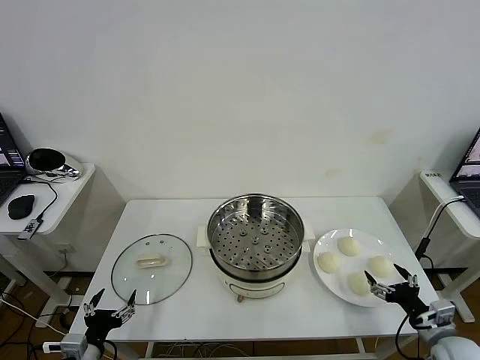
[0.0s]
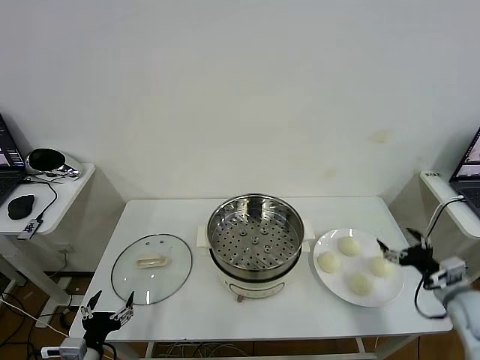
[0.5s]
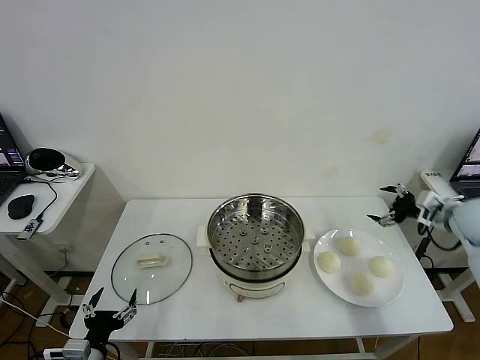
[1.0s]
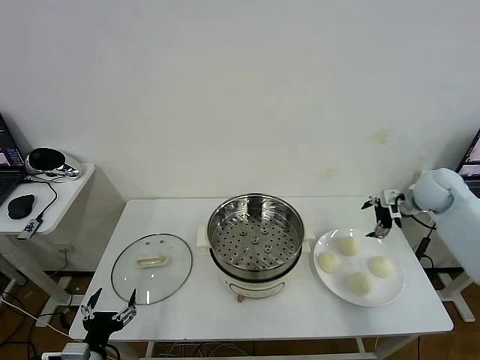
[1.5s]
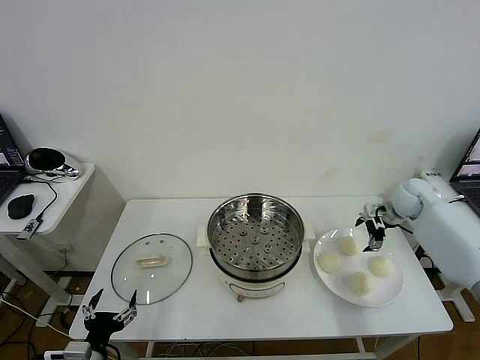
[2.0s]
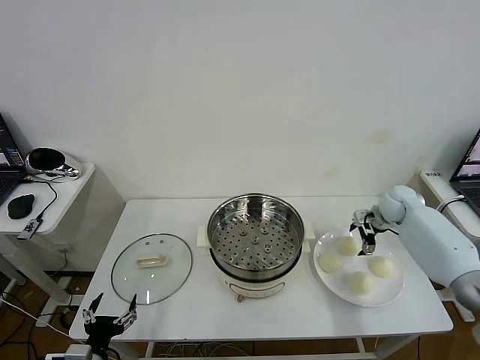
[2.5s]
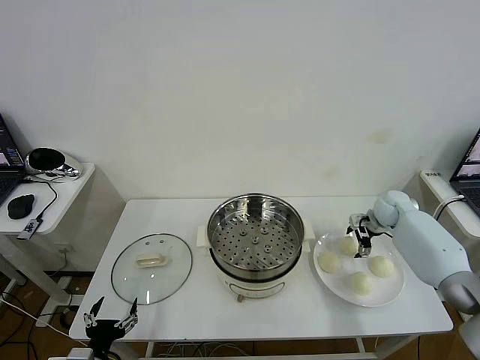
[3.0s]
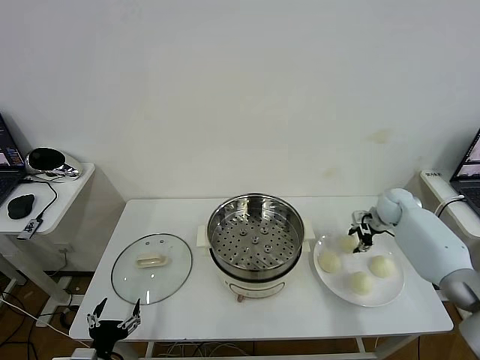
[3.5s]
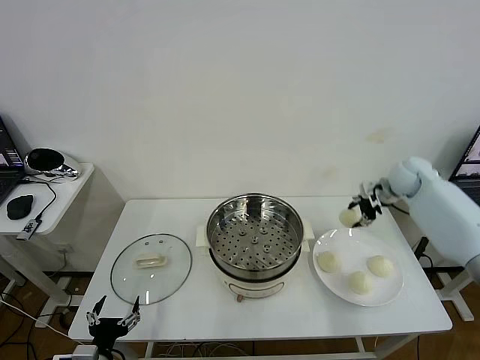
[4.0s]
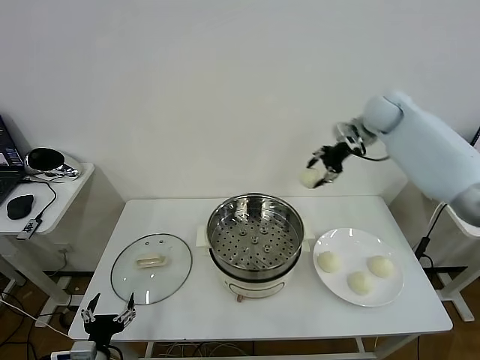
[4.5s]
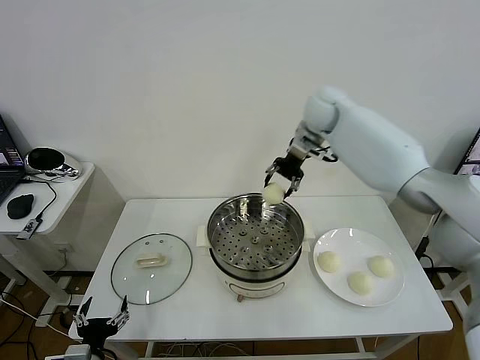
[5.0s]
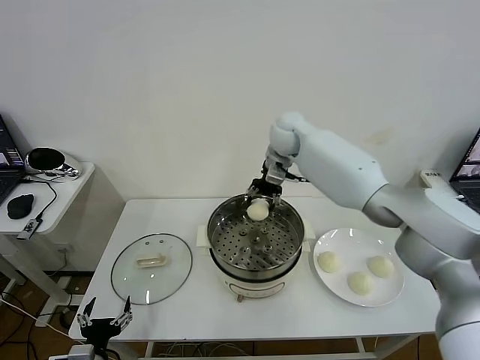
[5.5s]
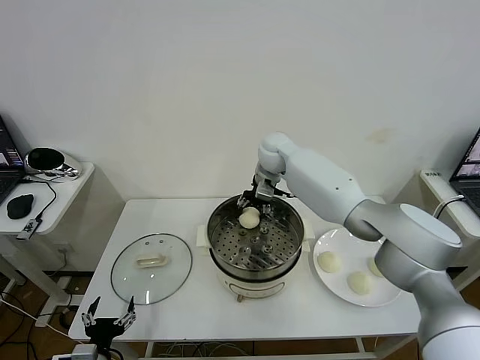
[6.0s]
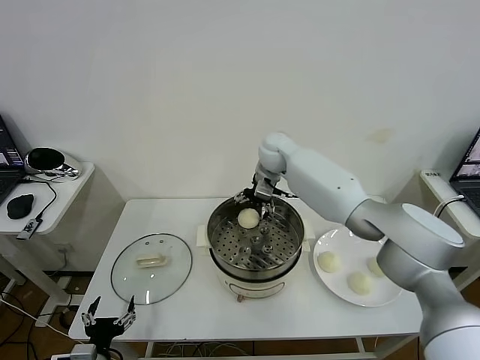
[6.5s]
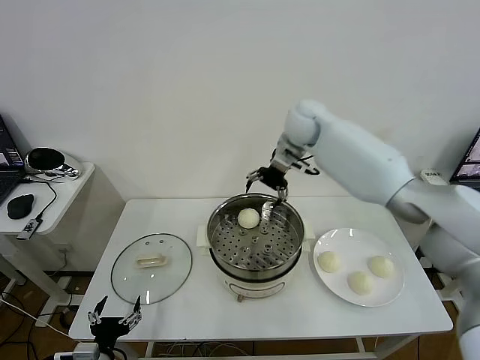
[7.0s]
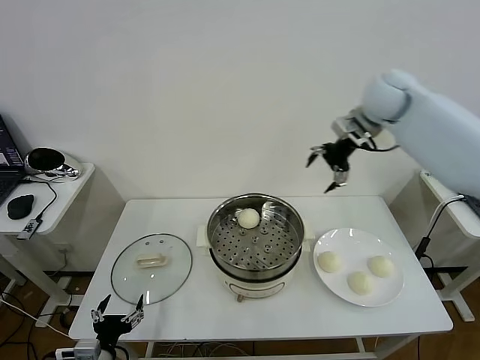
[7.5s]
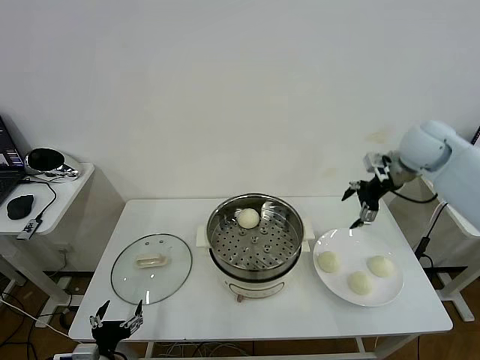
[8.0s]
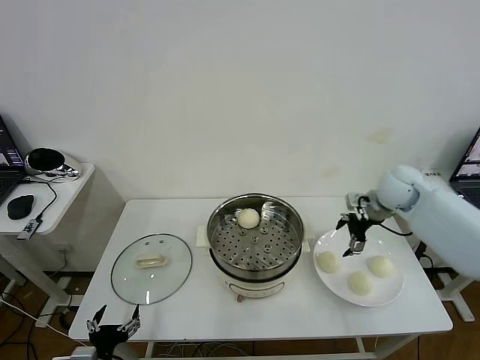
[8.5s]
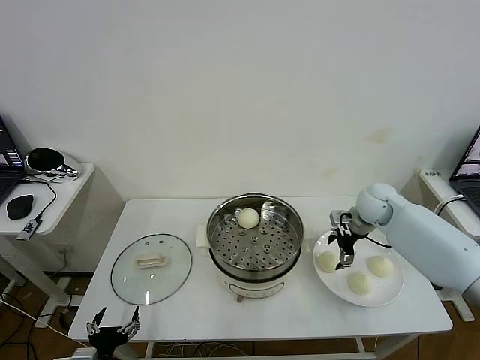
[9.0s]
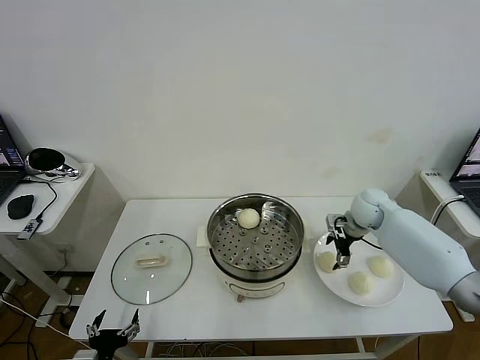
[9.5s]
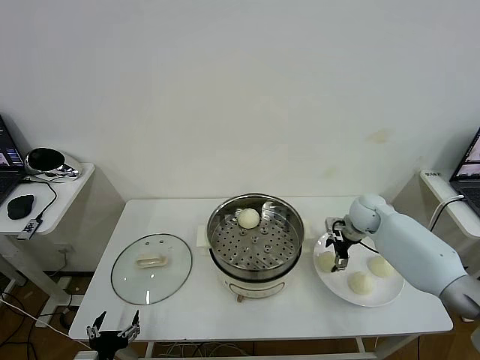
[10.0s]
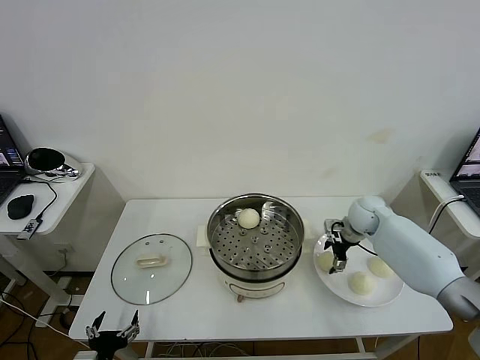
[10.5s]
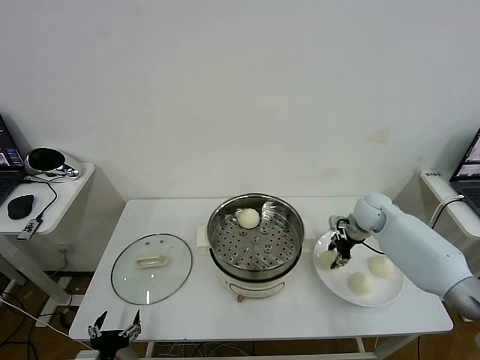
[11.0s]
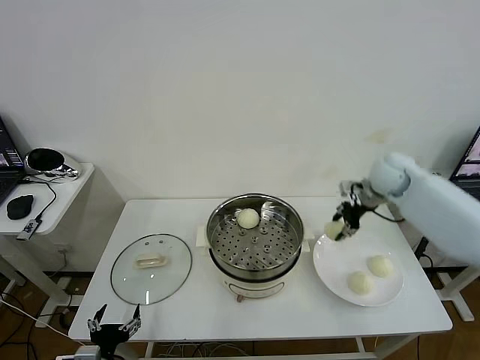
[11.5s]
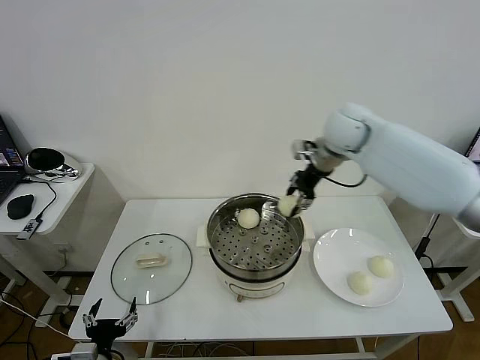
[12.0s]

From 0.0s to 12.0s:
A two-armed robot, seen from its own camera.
Task of the whole recording: take steamed baozi put them in steamer then cover it.
Step, from 0.0s to 3.0s: Grasp the baozi in the plate with right gripper.
Step, from 3.5s to 6.5s: Place the baozi on the steamer with right gripper.
Step, from 7.0s to 10.5s: Grasp the baozi in the plate with right gripper.
From 2.0s to 4.0s: The right gripper is displaced upward by about 10 cm, and closes.
From 4.0s to 6.0s: The right gripper heads to the left, covering approximately 30 cm.
From 6.0s to 8.0s: The right gripper travels to the right by roughly 30 cm, and opens its fingers.
From 8.0s to 10.0s: The right gripper goes approximately 20 cm downward.
From 10.0s to 12.0s: The right gripper shifts approximately 30 cm upward and to the left, and closes up.

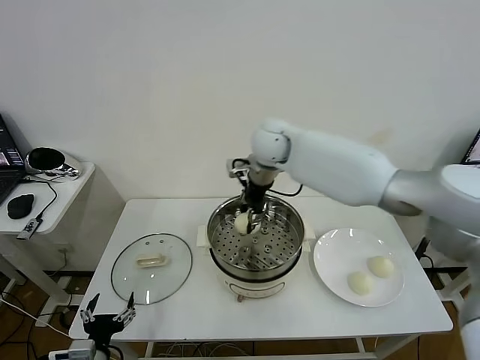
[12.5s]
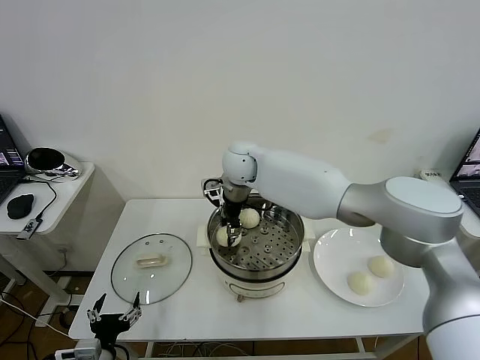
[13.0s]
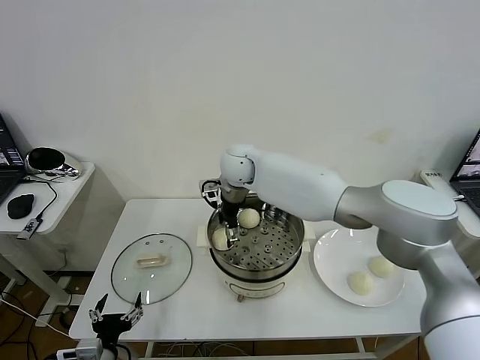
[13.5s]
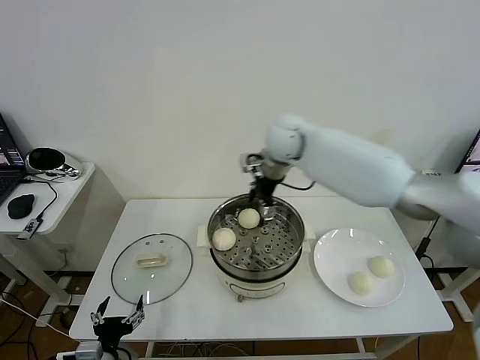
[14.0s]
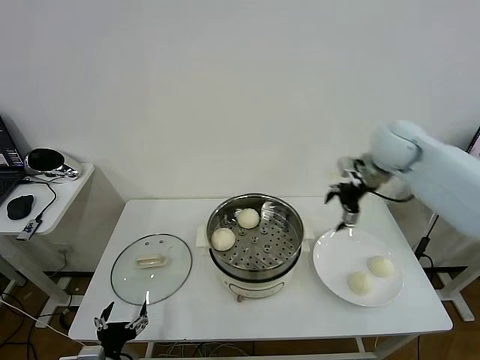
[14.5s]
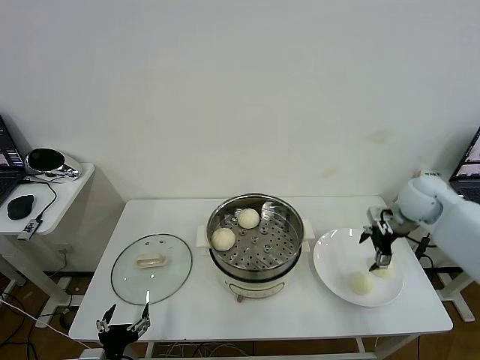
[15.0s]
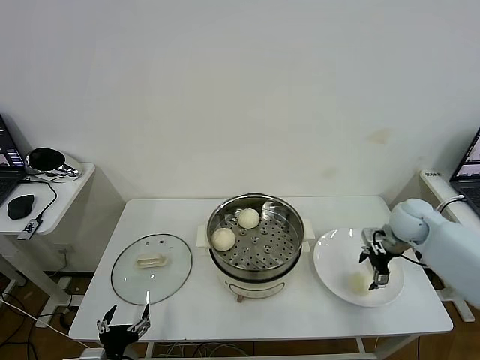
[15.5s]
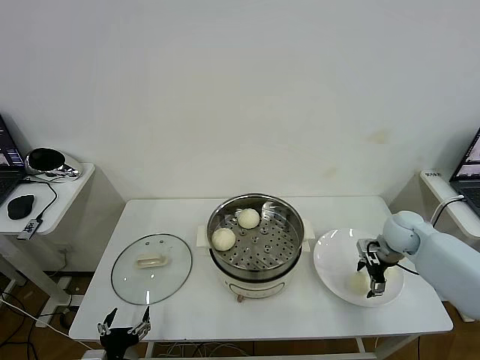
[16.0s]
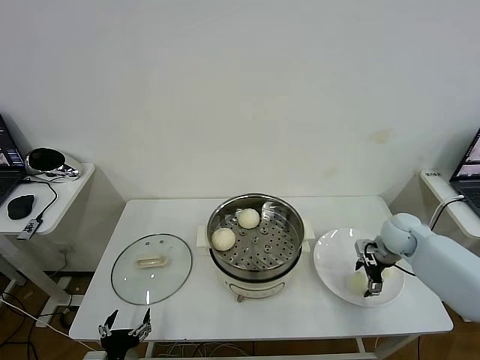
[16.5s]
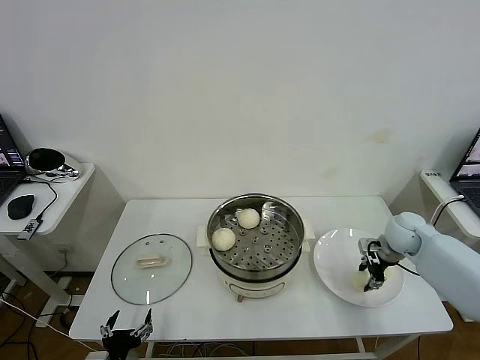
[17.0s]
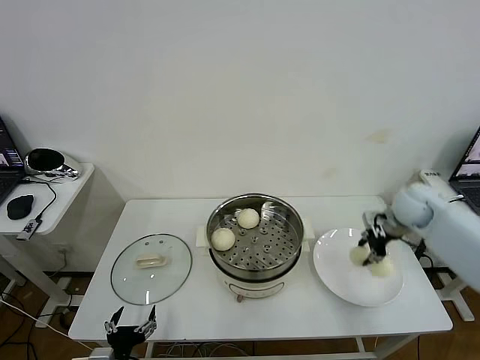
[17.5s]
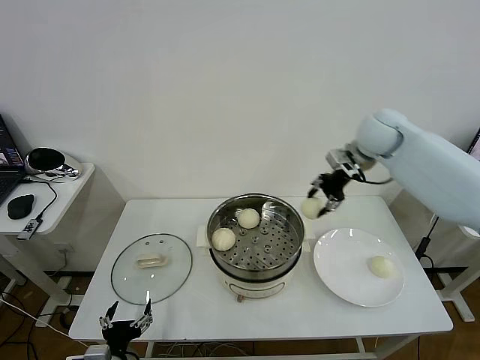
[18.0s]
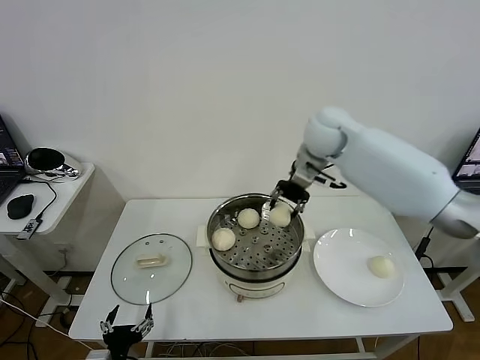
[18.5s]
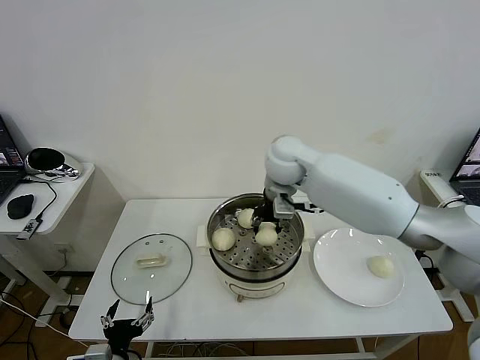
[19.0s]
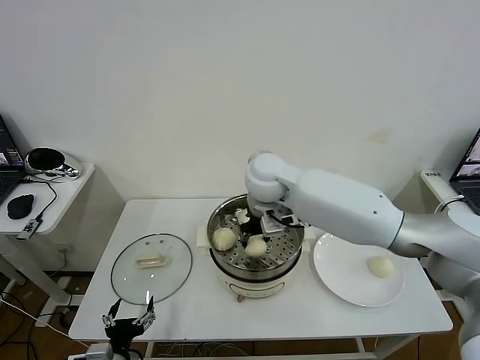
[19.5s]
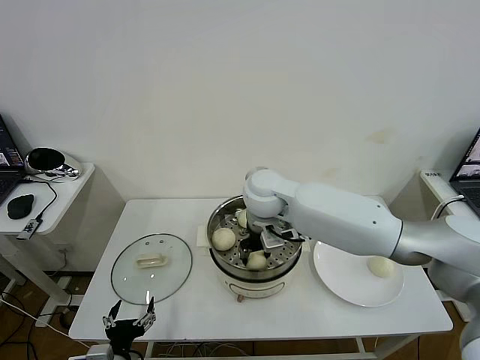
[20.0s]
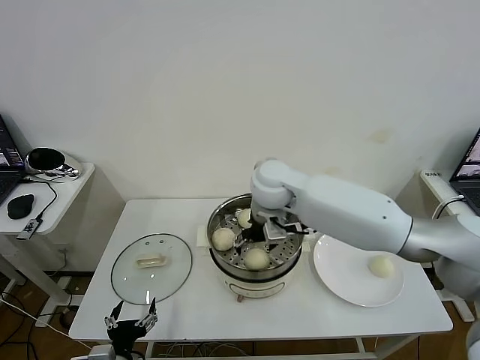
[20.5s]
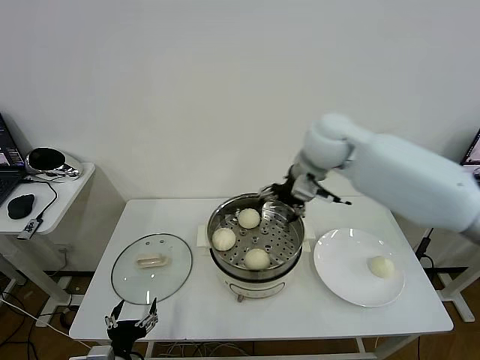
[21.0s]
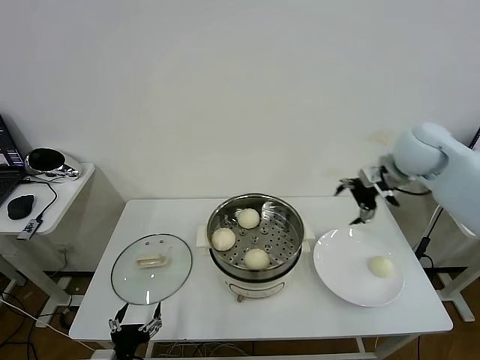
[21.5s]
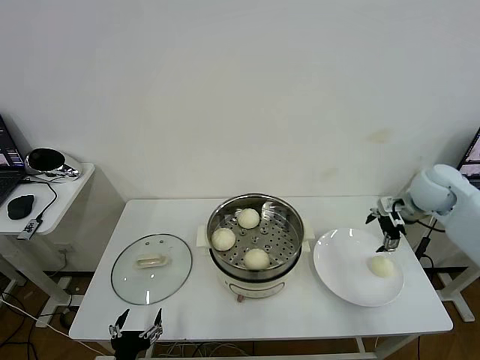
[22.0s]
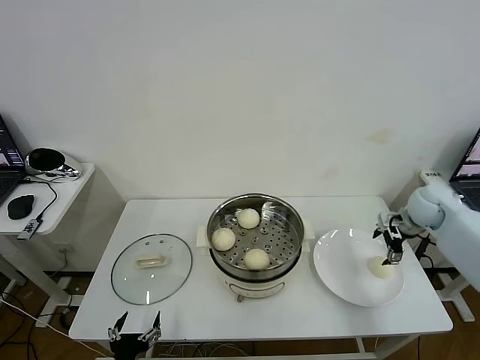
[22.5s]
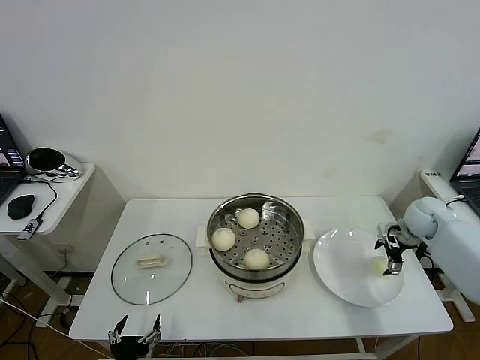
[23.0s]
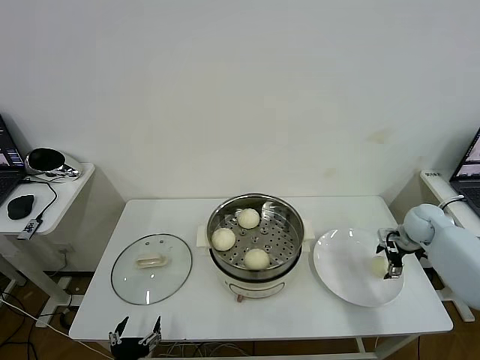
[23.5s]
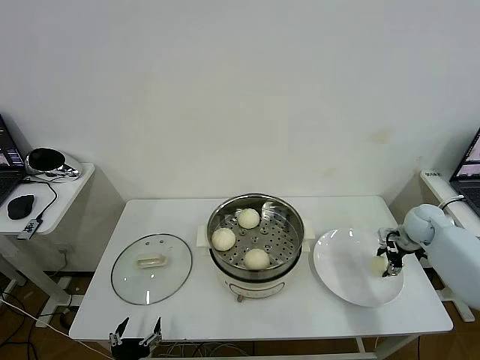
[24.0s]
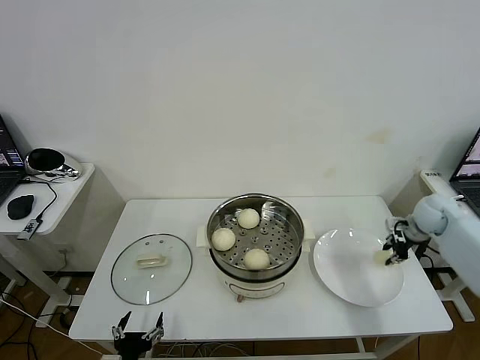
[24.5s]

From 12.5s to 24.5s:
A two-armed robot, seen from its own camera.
Task of the whole recording: take steamed baozi put them in steamer then cover it.
Step, from 14.0s to 17.0s: Grasp the baozi in the plate with right gripper.
Step, from 17.5s to 20.5s: Place the baozi on the steamer with right gripper.
Step, from 21.0s to 24.0s: Grasp the baozi in the plate with right gripper.
From 12.5s to 14.5s: The right gripper moves to the right, roughly 30 cm, and opens.
From 14.5s to 16.5s: The right gripper goes some 20 cm downward.
From 16.5s to 18.5s: The right gripper moves to the left and upward, approximately 30 cm, and closes.
From 18.5s to 20.5s: The right gripper heads to the left, backward and downward, covering about 15 cm, and opens its fingers.
From 20.5s to 22.5s: The right gripper goes some 40 cm to the right.
From 22.5s to 24.5s: The right gripper closes up.

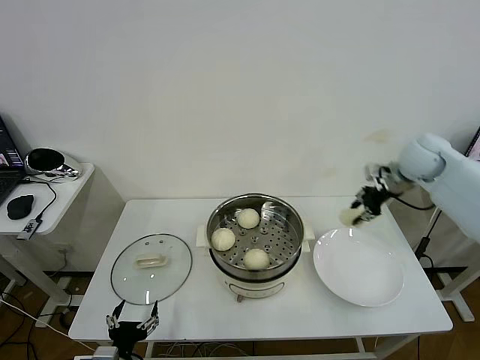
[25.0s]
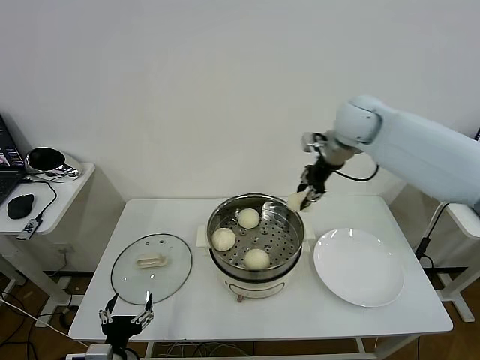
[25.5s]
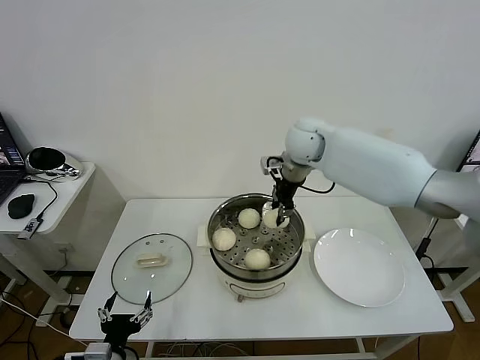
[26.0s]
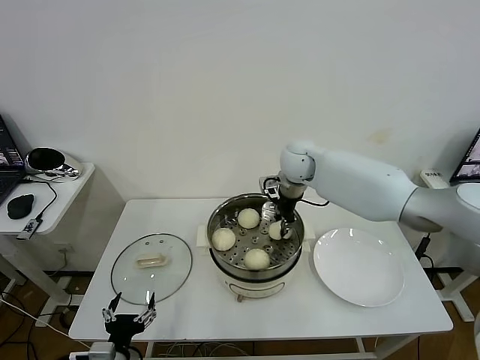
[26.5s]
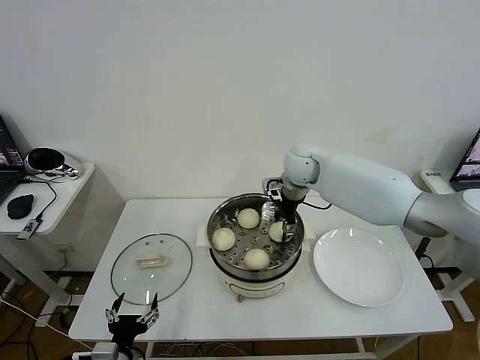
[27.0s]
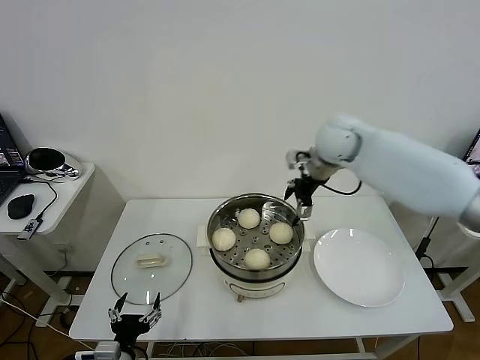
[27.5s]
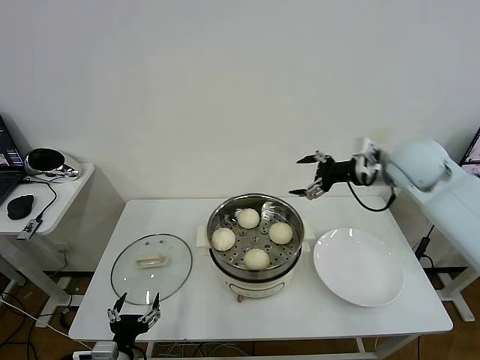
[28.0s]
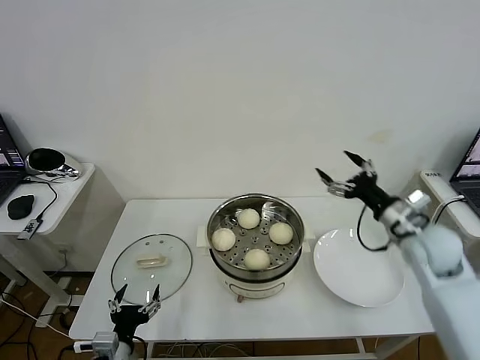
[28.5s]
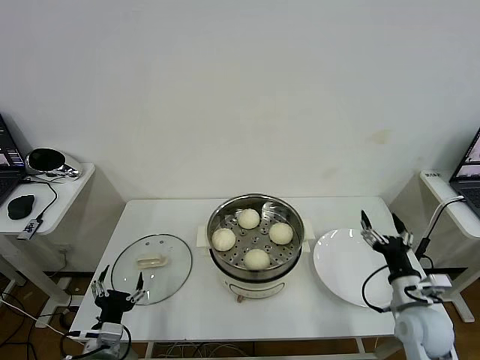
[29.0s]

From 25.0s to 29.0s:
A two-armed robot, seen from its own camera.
Task of the whole recording: take steamed baozi put them in steamer then cover it.
Step, from 25.0s to 27.0s: Place the baozi on the steamer with right gripper.
From 25.0s to 27.0s: The right gripper travels to the left by approximately 25 cm, and opens up.
From 27.0s to 29.0s: The right gripper goes approximately 40 cm backward, to the right and downward, and opens up.
